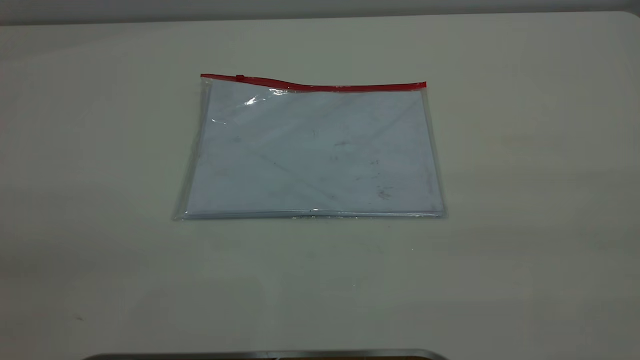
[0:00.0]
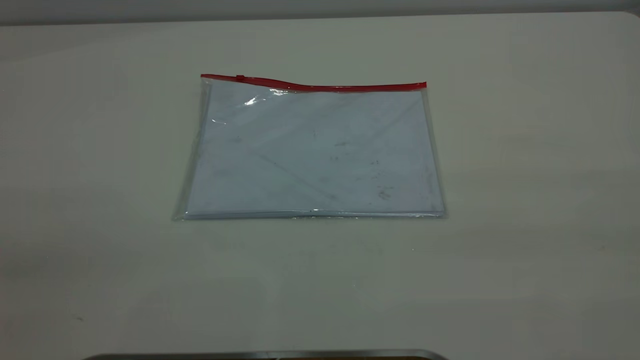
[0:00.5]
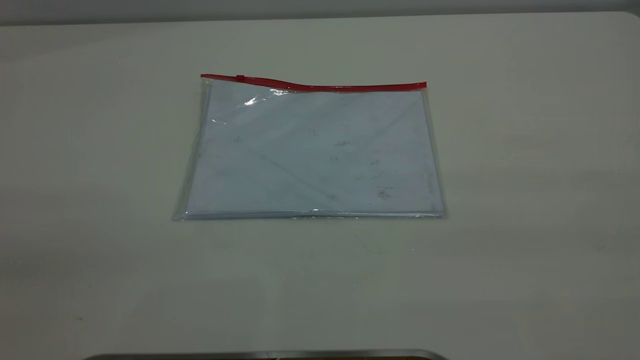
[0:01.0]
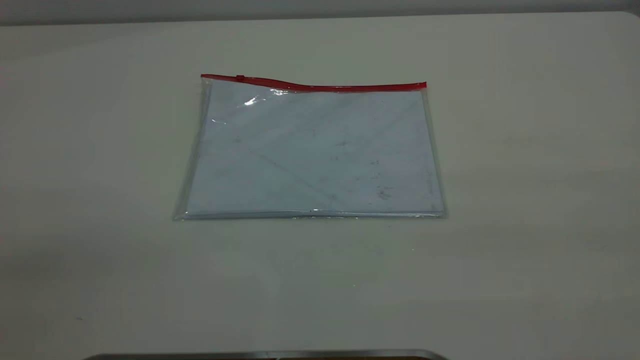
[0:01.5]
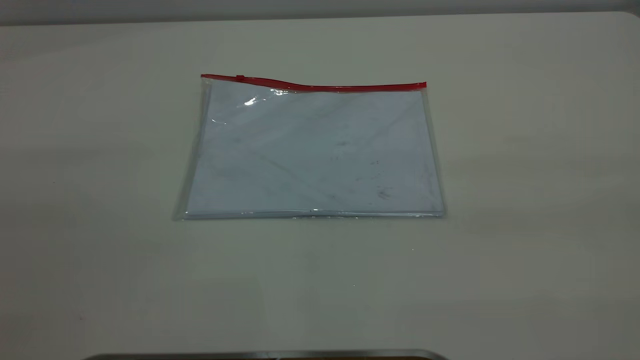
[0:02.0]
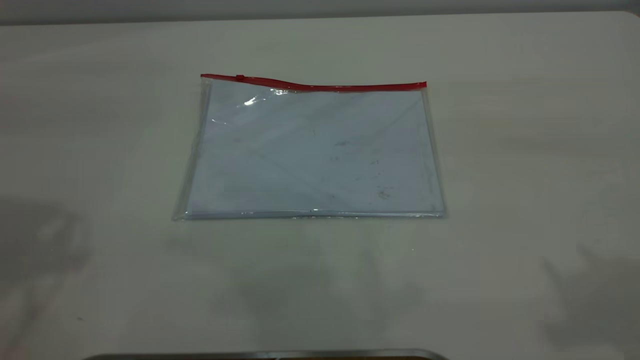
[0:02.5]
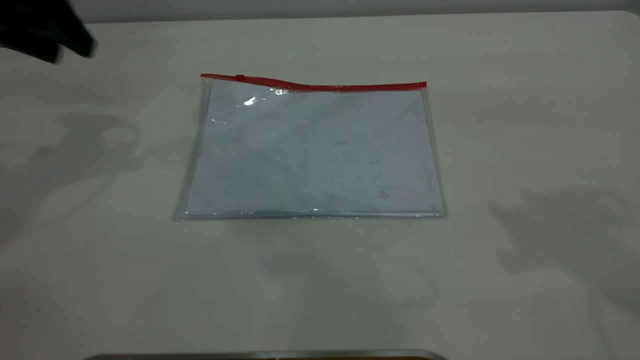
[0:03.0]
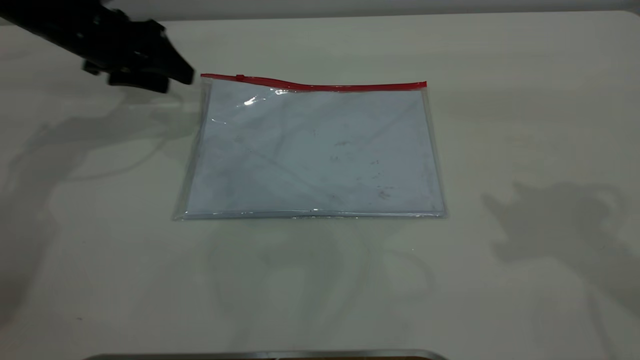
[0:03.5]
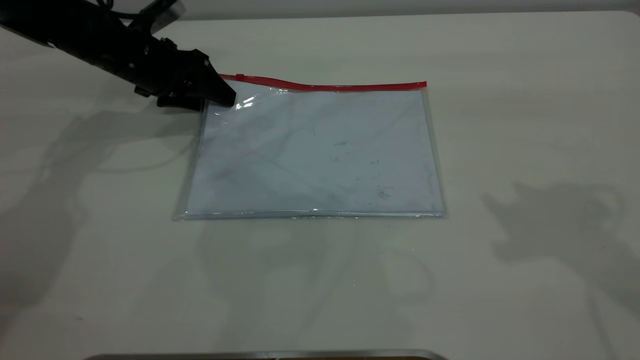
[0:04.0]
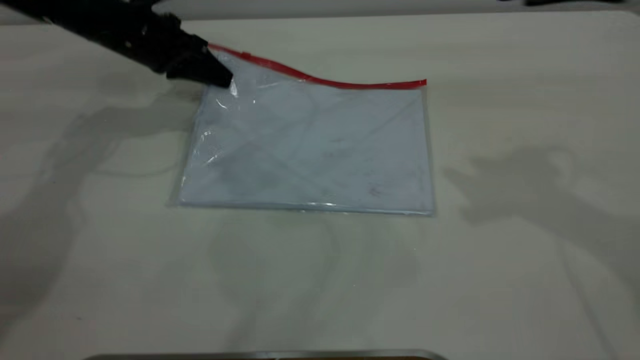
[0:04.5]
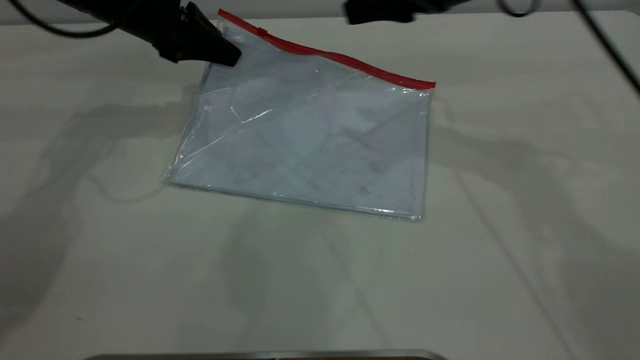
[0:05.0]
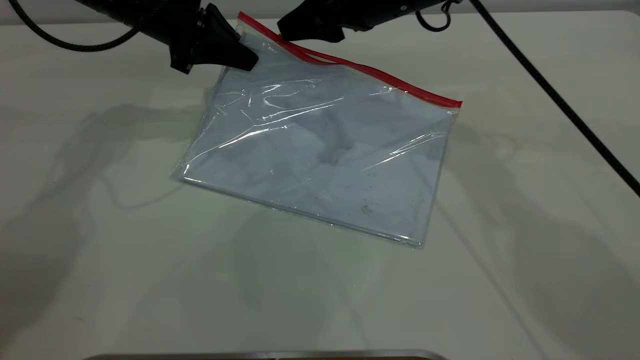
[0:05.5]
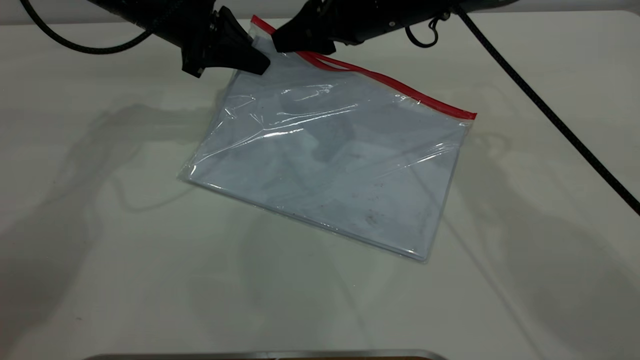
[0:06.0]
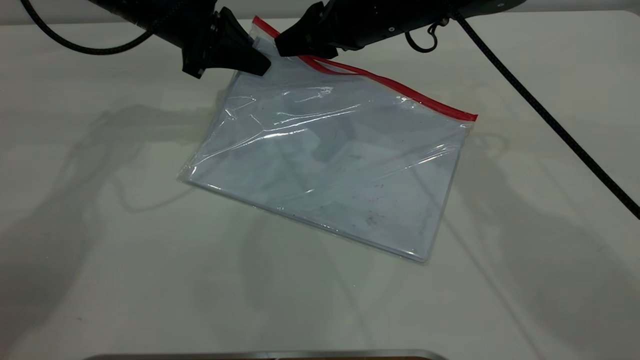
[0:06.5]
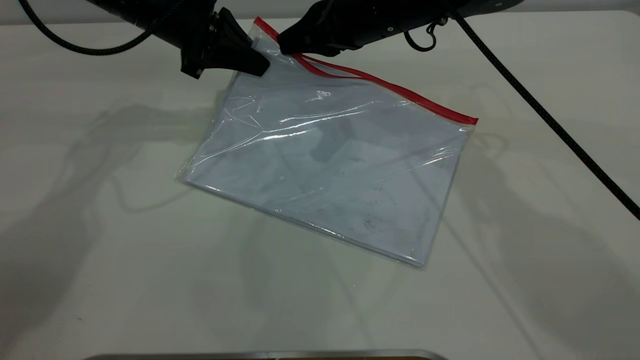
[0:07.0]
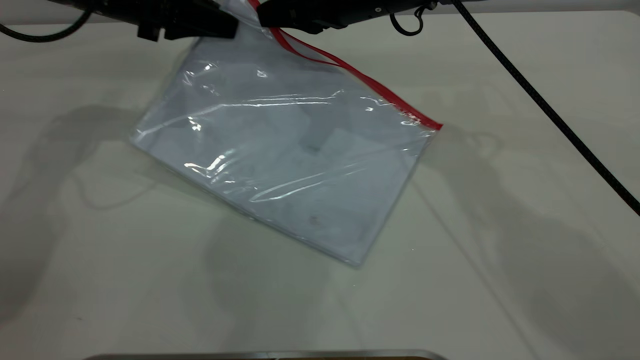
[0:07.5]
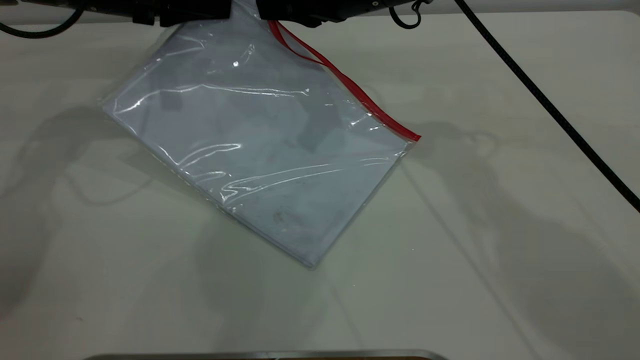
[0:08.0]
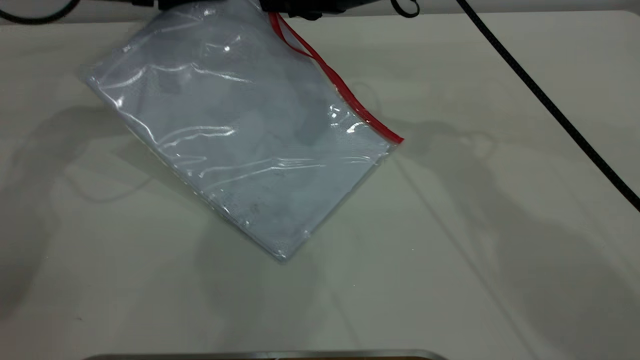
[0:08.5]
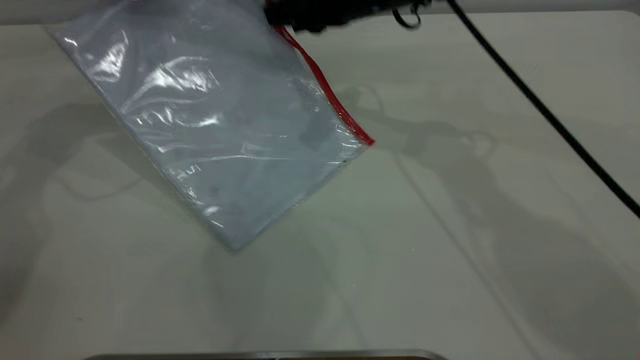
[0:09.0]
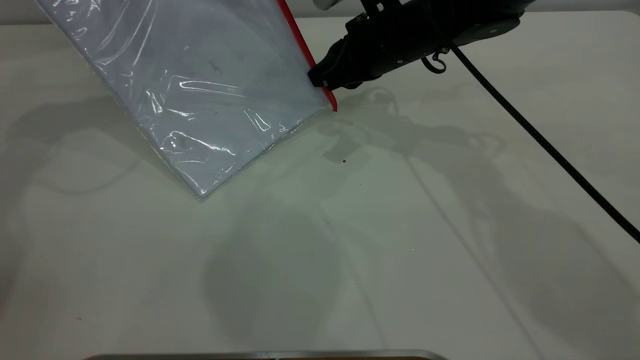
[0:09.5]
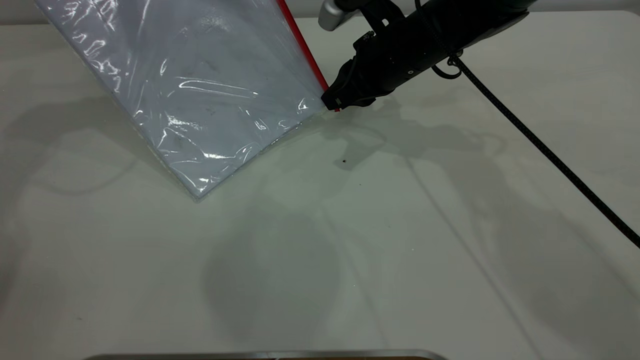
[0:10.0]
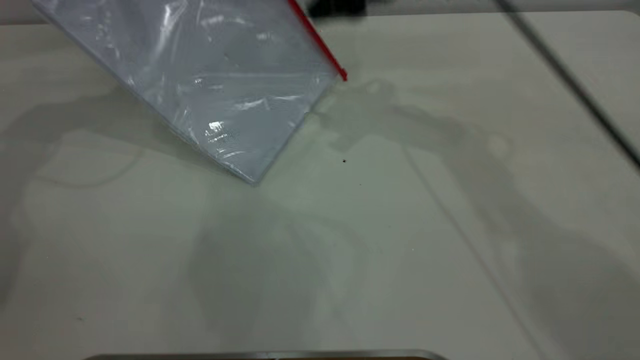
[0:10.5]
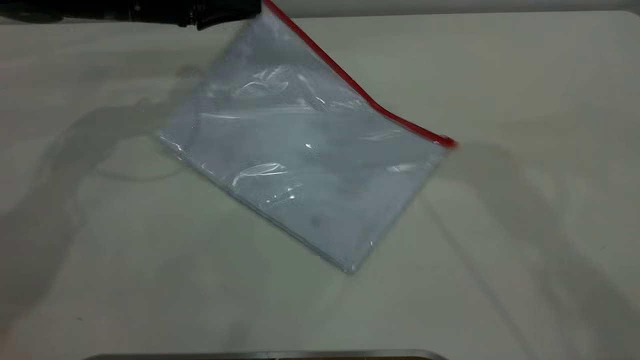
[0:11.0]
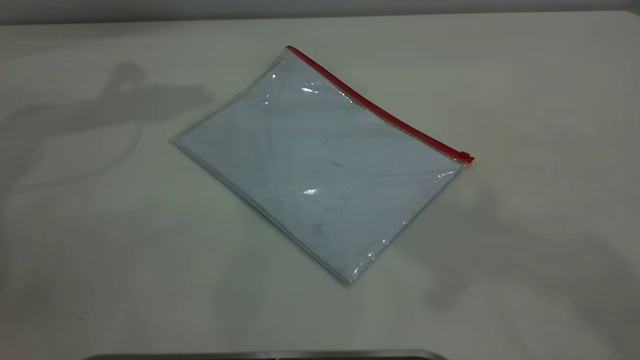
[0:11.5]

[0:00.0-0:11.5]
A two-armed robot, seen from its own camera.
Step, 0:00.0 to 0:04.5: Pick up the transparent plastic bag with the left gripper.
Step, 0:05.0 to 0:10.0: Pulling up the zipper on the transparent plastic bag with the right gripper to close it.
Step, 0:10.5 to 0:11.0: Place the transparent plastic bag.
0:02.0 to 0:04.0: The left gripper moves forward and downward, approximately 50 cm.
0:04.0 to 0:06.0: The left gripper moves upward and to the right, about 10 cm, and closes. The right gripper moves forward, to the left and downward, about 30 cm.
0:06.0 to 0:07.5: The left gripper travels to the left by approximately 5 cm; the right gripper closes up.
0:07.5 to 0:09.5: The right gripper travels downward by about 5 cm; the left gripper travels upward by approximately 10 cm.
0:09.5 to 0:11.5: The right gripper shifts some 50 cm upward and backward, and opens up, while the left gripper shifts about 5 cm upward, and opens.
